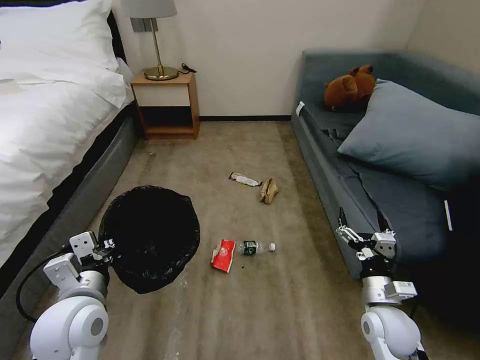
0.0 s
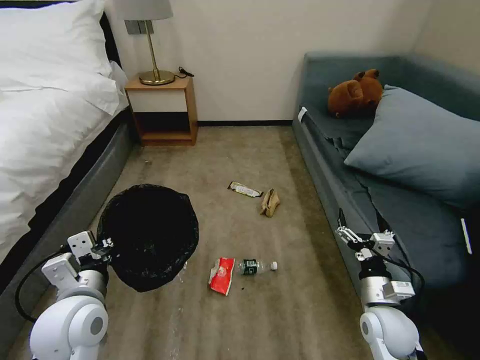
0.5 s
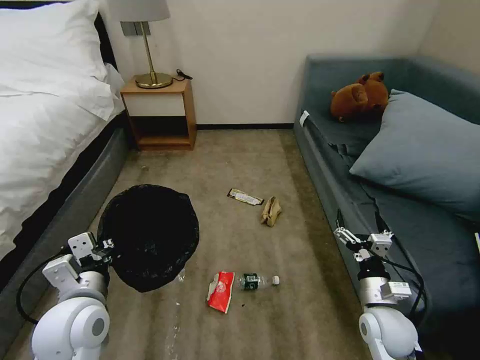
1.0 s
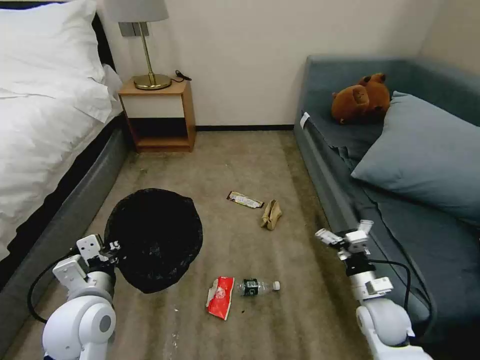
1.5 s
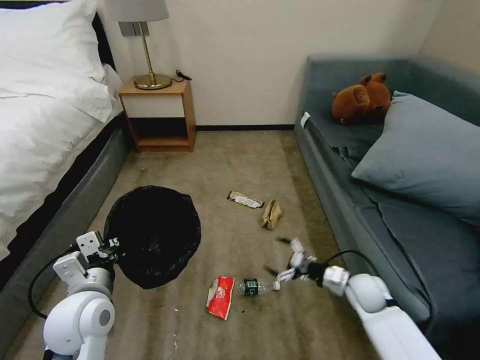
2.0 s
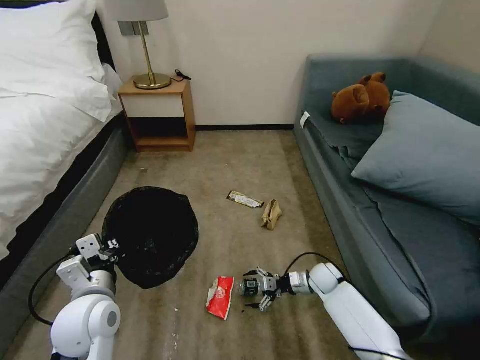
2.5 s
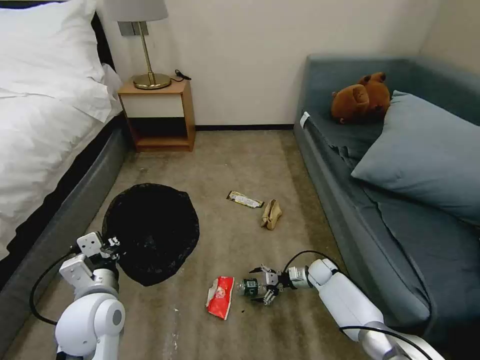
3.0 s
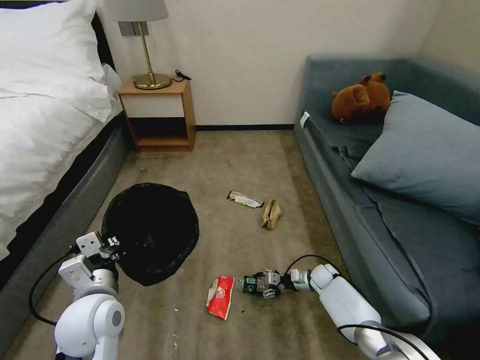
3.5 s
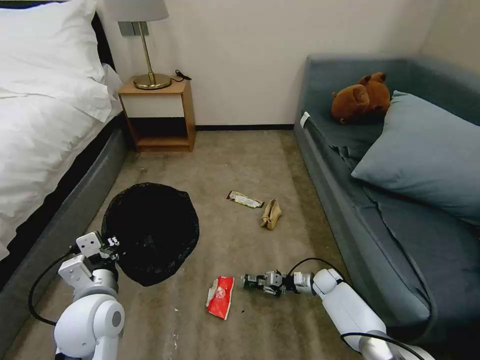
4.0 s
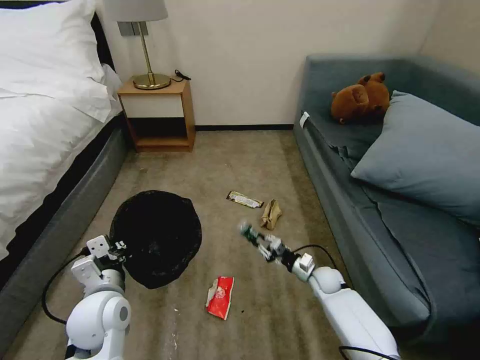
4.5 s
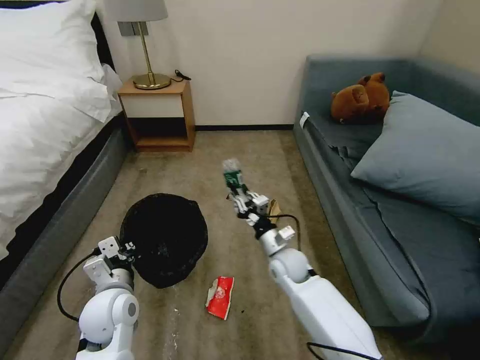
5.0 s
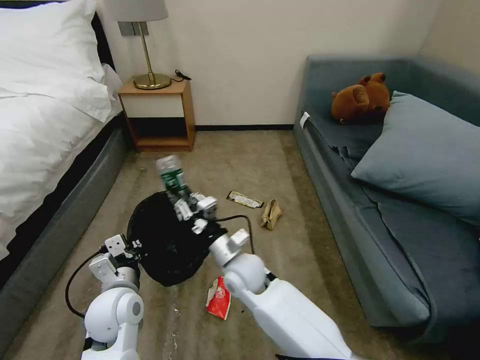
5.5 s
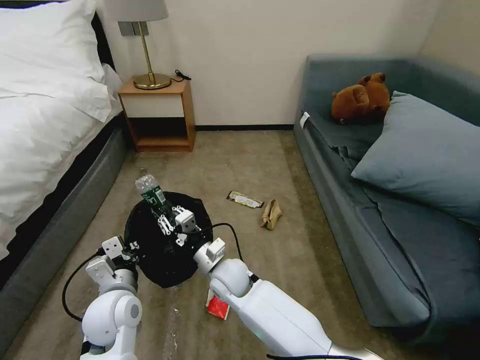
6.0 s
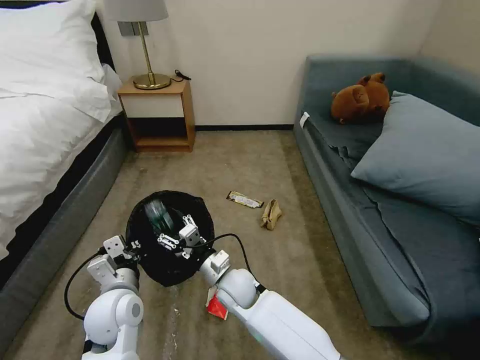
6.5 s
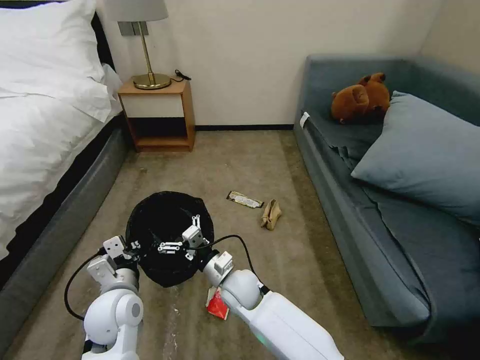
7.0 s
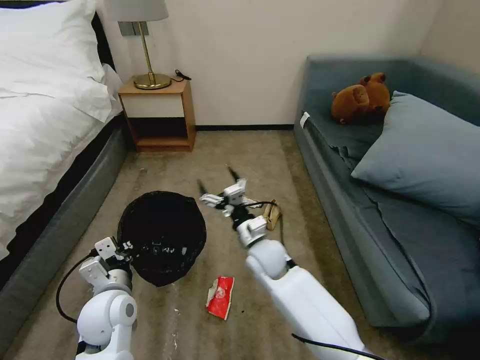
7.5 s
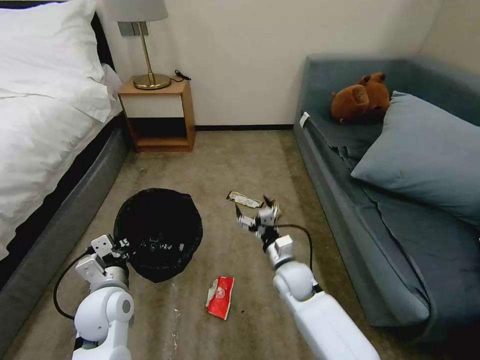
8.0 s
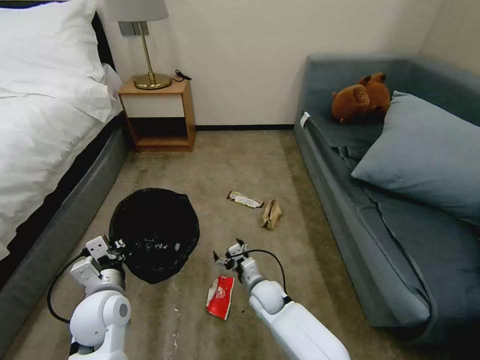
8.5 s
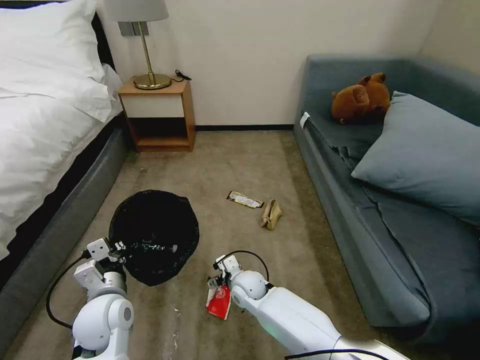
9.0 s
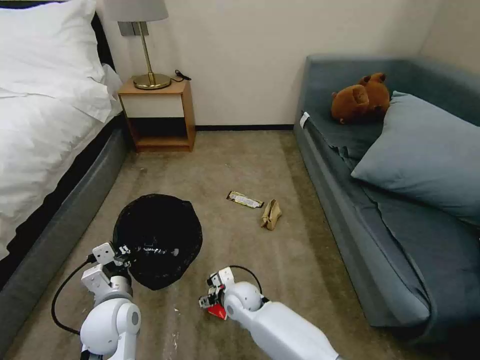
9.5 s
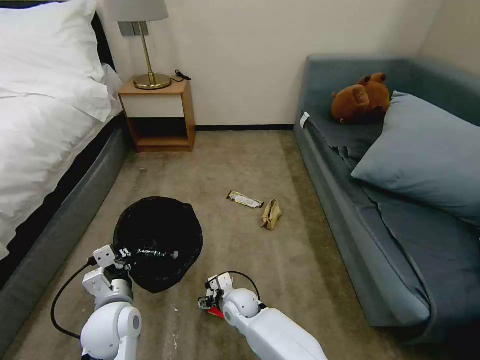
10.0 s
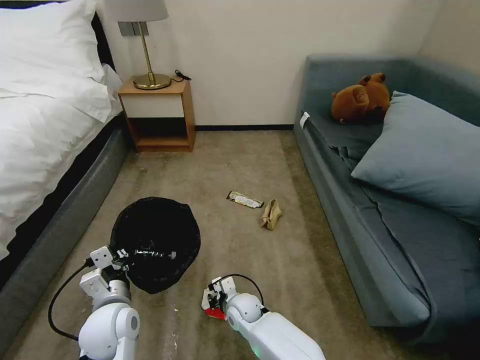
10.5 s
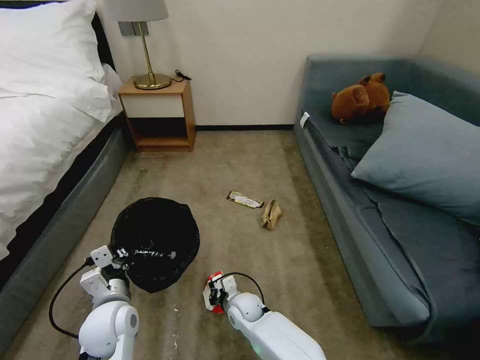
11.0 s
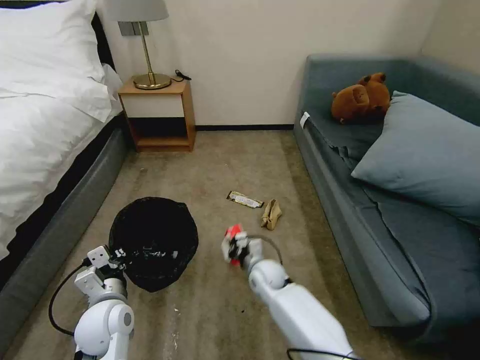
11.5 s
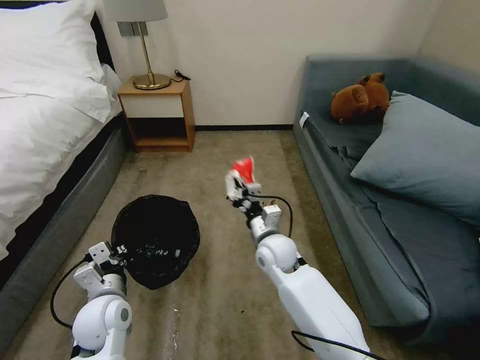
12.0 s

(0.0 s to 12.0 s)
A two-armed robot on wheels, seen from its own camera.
Task of the whole recording: Pick up the trash bin, then pick up the garbage on the floor and place it into the trash bin.
0.0 s - 2.0 s: The right gripper travels forward and downward by approximately 10 cm.
2.0 s - 4.0 s: The right gripper travels downward and forward by roughly 15 cm, and closes up.
4.0 s - 6.0 s: The right gripper travels to the left and upward by about 40 cm.
6.0 s - 8.0 s: The right gripper goes some 15 cm to the right, and opens its fingers.
8.0 s - 10.0 s: The right gripper heads to the left and downward, covering about 15 cm.
10.0 s - 12.0 s: The right gripper moves upward and to the right, approximately 20 cm, and closes its fingers.

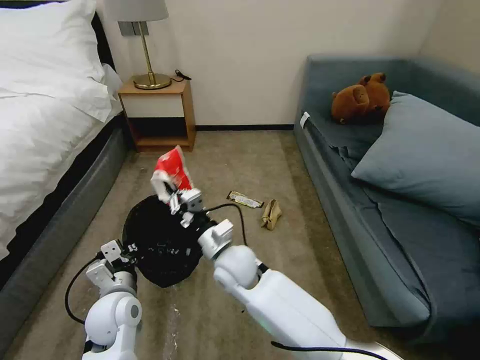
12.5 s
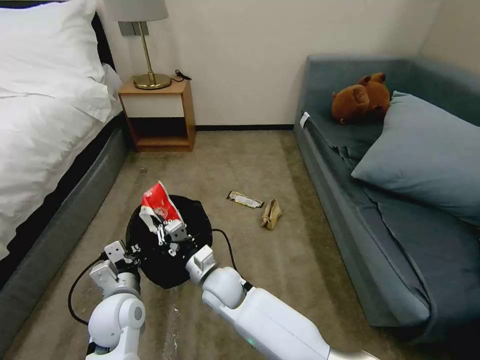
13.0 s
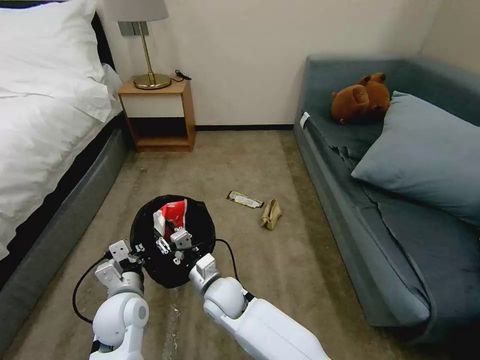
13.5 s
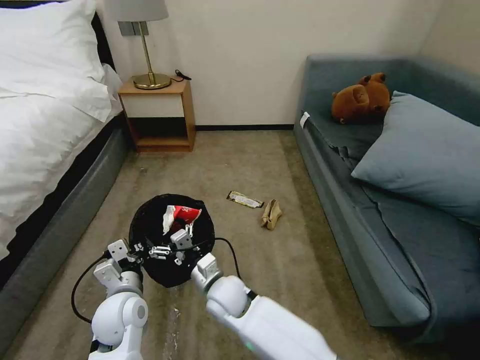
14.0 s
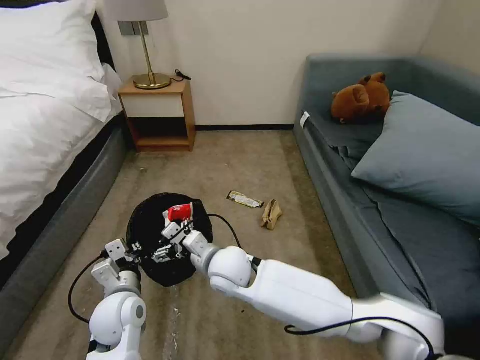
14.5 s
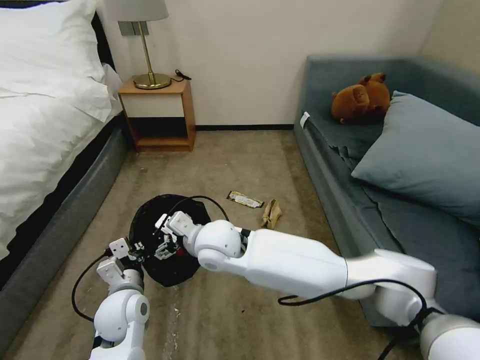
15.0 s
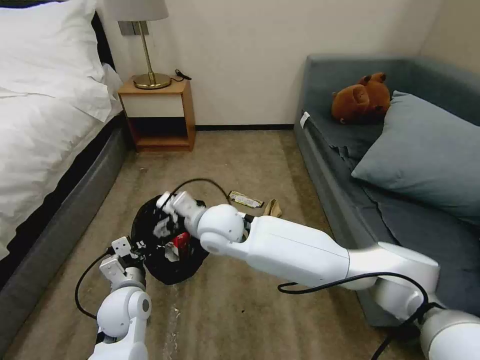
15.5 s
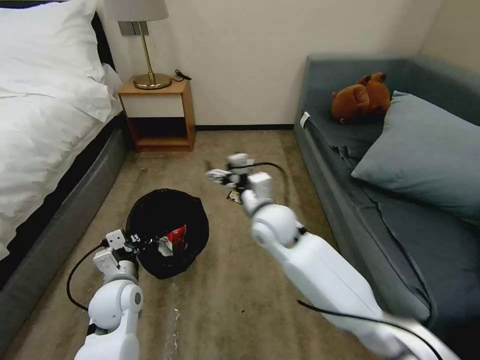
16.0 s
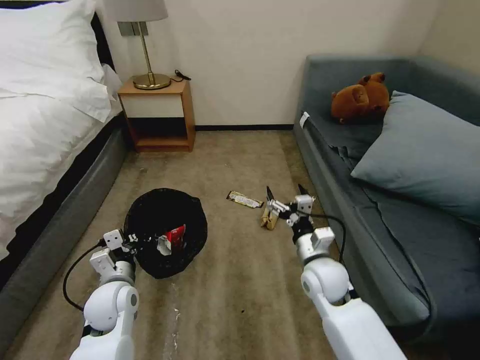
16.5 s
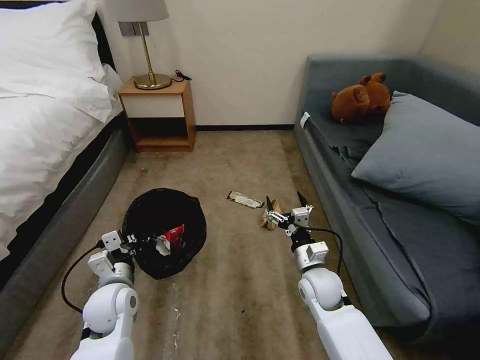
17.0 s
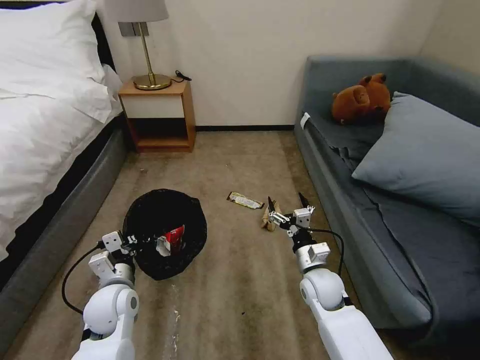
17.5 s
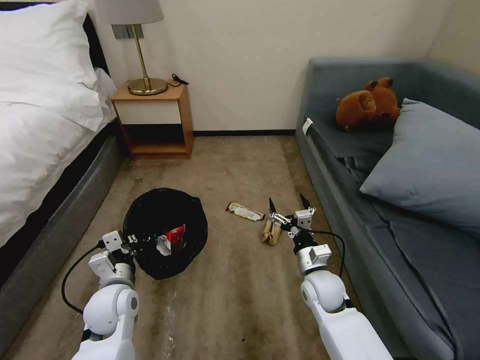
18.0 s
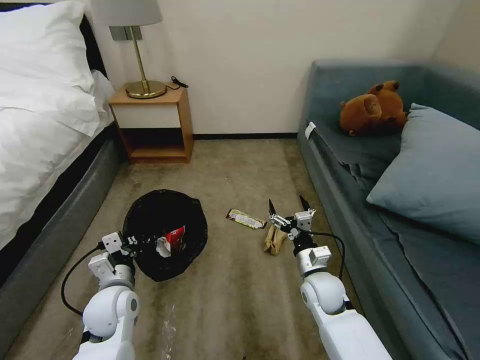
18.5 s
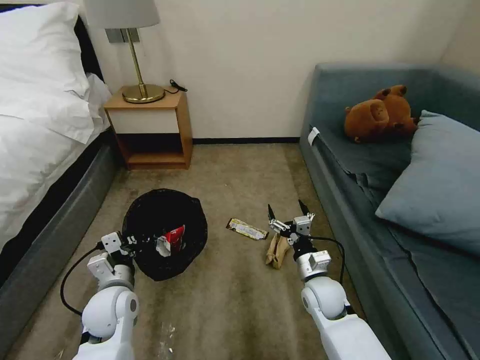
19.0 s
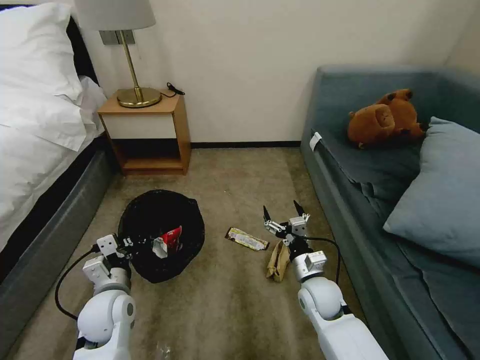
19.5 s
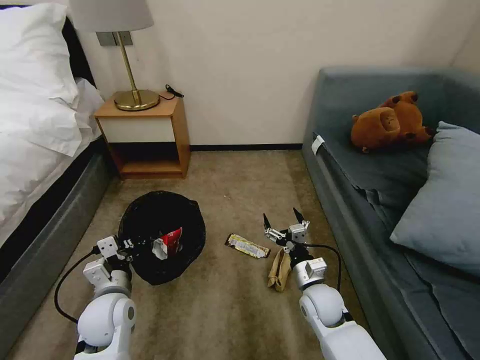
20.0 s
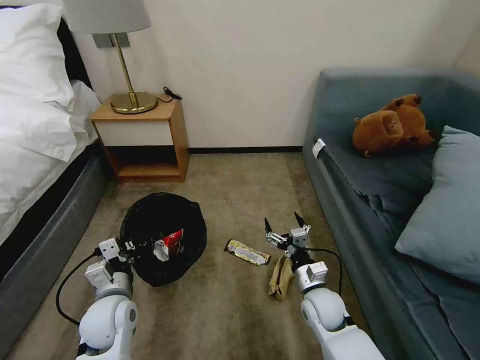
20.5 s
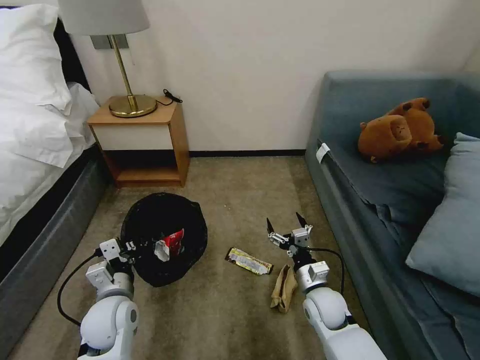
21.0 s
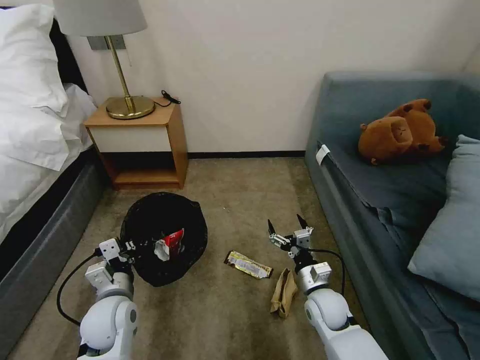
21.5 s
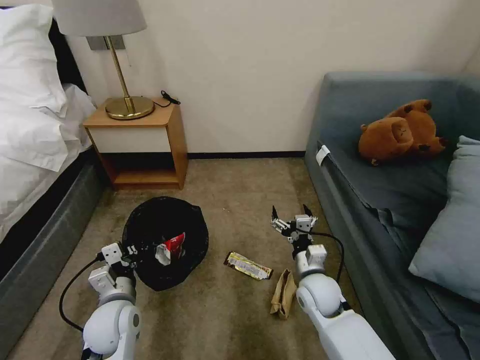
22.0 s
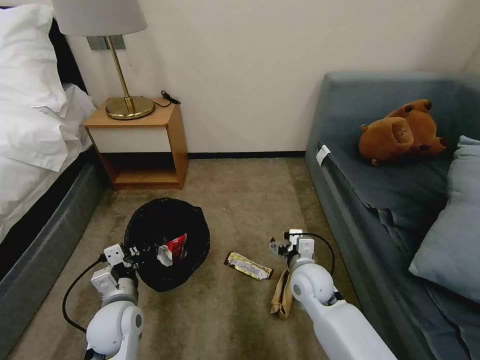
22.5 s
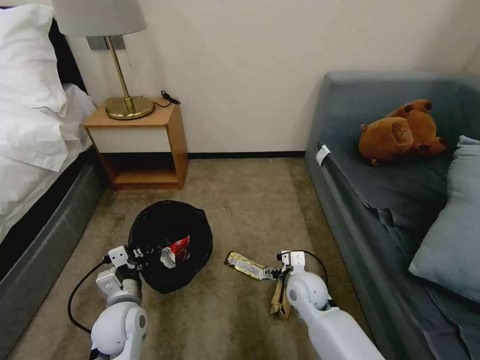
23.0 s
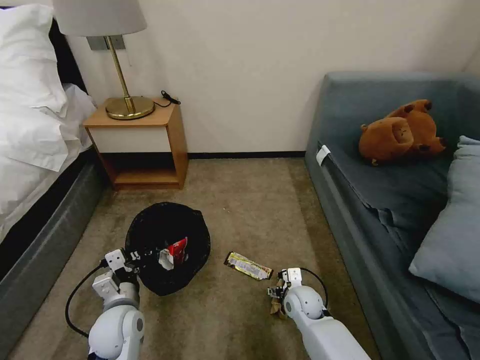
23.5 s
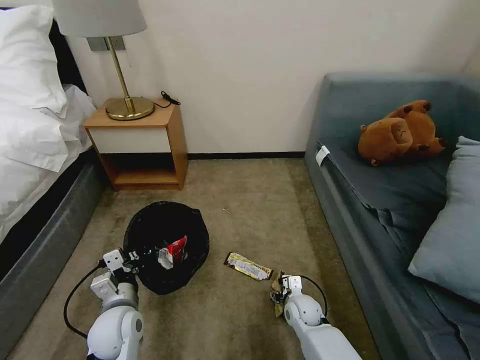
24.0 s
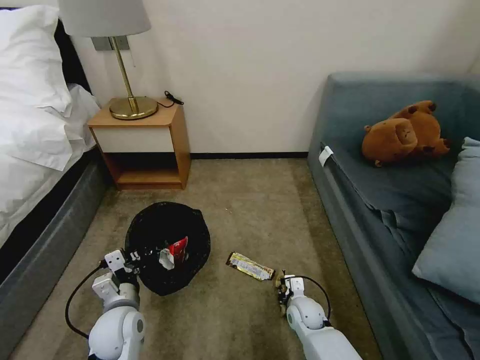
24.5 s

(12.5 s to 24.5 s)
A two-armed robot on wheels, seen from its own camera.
Task of the whole recording: Pick up the trash bin, then pick up the garbage on the floor and place it into the trash bin.
12.5 s - 14.5 s: The right gripper goes downward and returns, some 10 cm each way, and opens its fingers.
14.5 s - 16.5 s: The right gripper travels to the right by about 20 cm.
16.5 s - 18.5 s: The right gripper shifts about 5 cm downward.
20.5 s - 22.5 s: The right gripper is displaced upward by some 5 cm.
22.5 s - 24.5 s: The right gripper travels downward by some 15 cm, and closes.

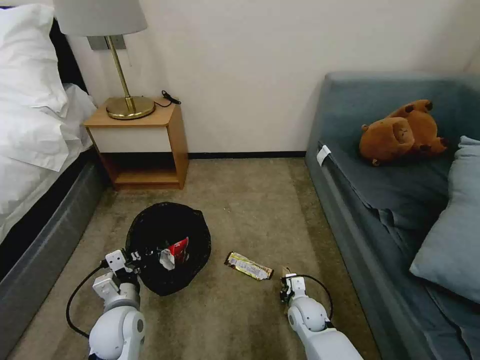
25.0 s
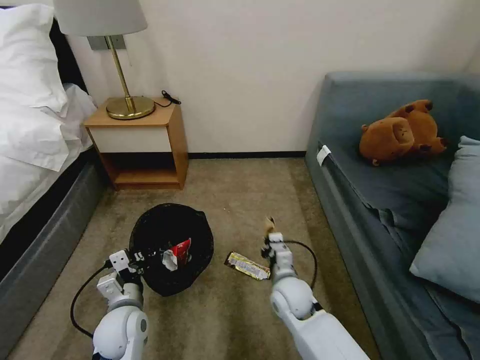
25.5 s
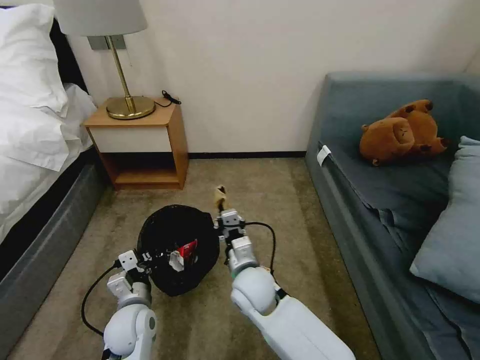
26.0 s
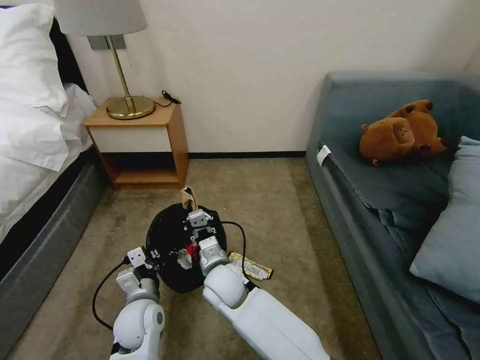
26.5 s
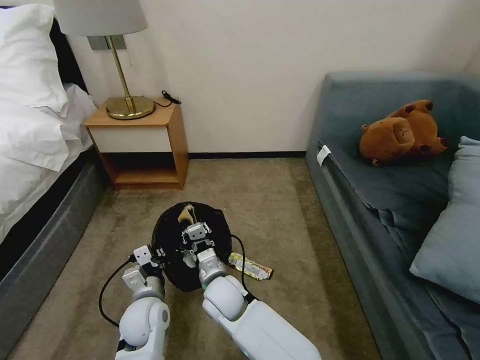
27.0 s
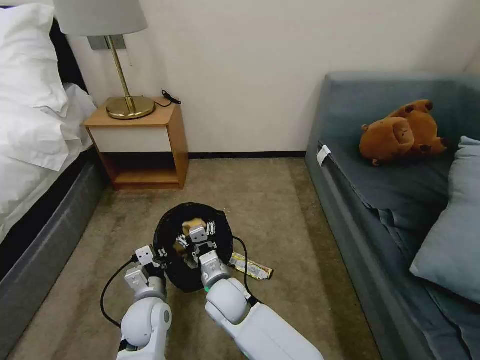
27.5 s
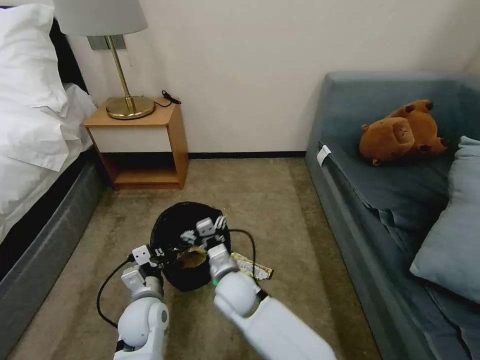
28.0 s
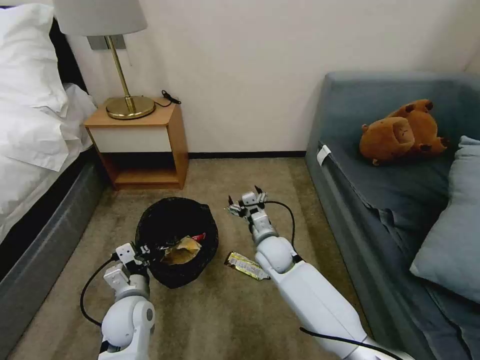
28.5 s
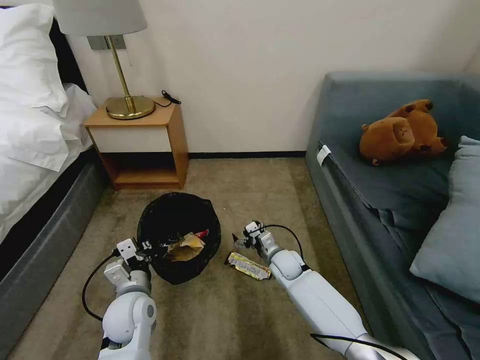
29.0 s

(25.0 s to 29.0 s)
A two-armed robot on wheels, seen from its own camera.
Task of the whole recording: Pick up the trash bin, then pick up the garbage on the floor and place it into the trash bin.
25.0 s - 27.0 s: The left gripper shifts by some 5 cm. Meanwhile the right gripper goes about 25 cm to the left and upward.
27.0 s - 29.0 s: The right gripper heads to the right, forward and downward, covering roughly 25 cm, and opens its fingers.
